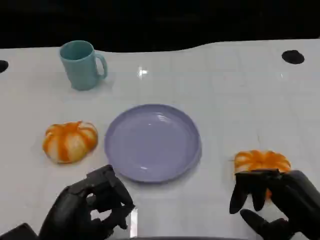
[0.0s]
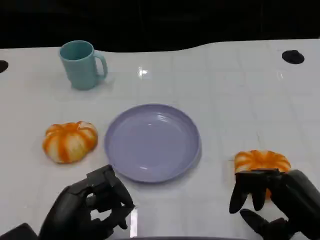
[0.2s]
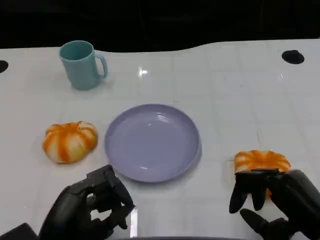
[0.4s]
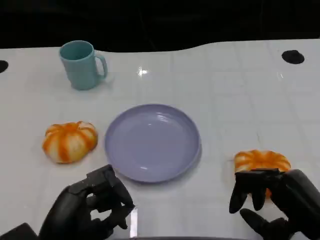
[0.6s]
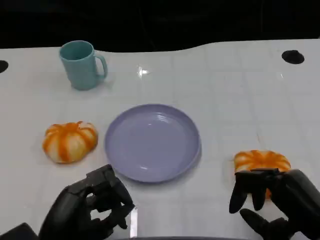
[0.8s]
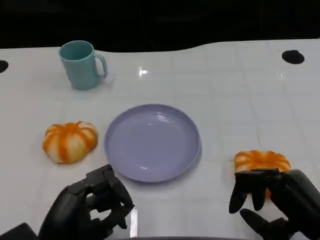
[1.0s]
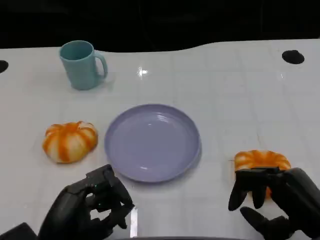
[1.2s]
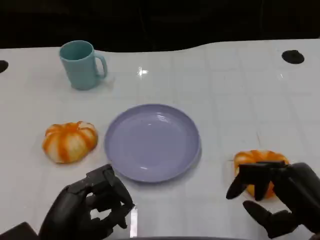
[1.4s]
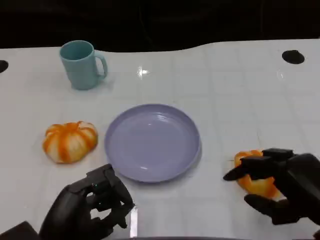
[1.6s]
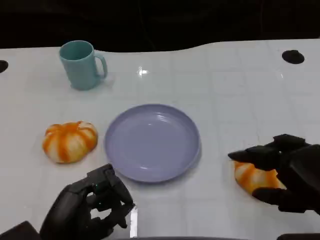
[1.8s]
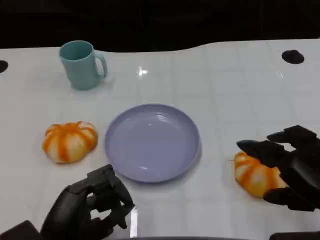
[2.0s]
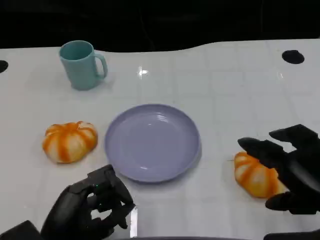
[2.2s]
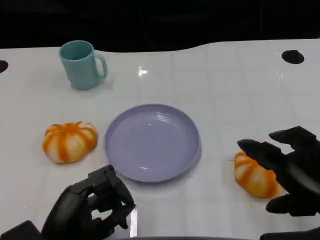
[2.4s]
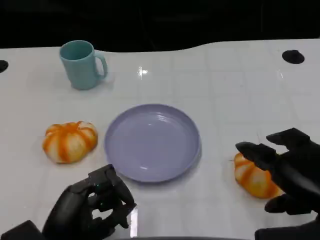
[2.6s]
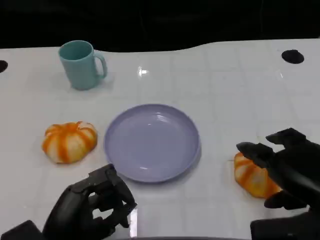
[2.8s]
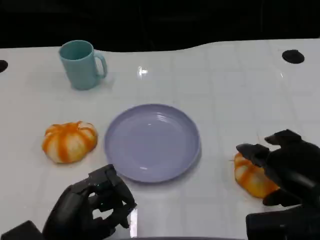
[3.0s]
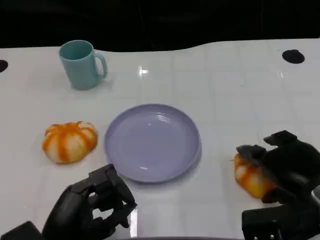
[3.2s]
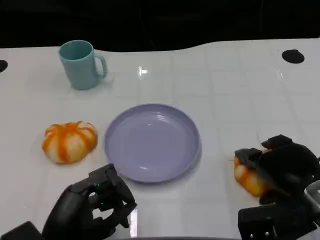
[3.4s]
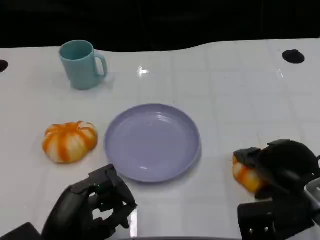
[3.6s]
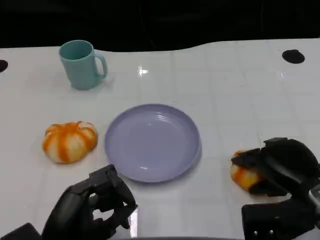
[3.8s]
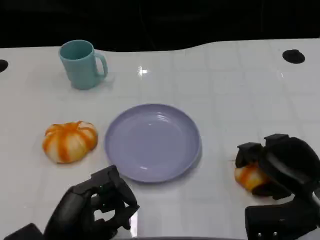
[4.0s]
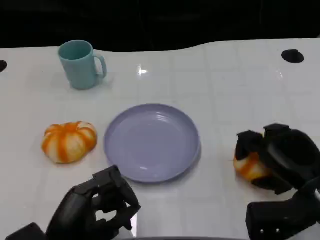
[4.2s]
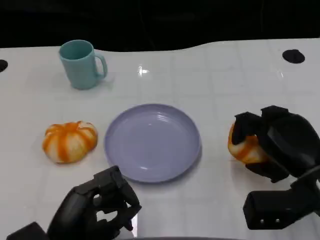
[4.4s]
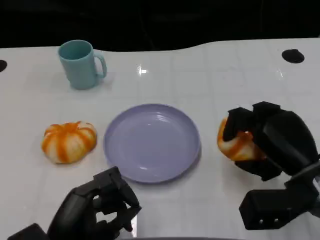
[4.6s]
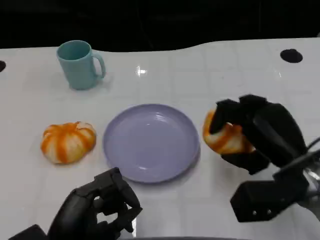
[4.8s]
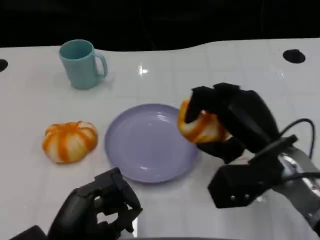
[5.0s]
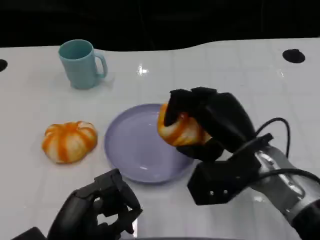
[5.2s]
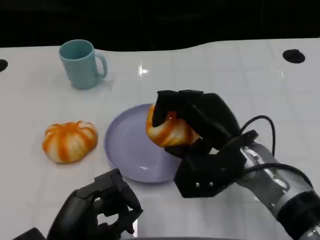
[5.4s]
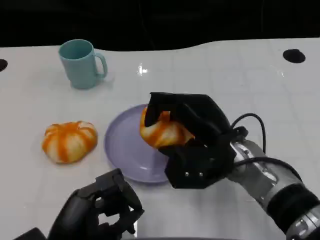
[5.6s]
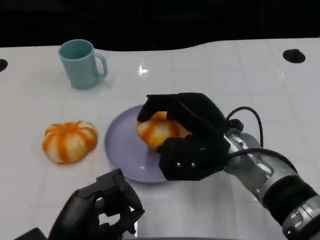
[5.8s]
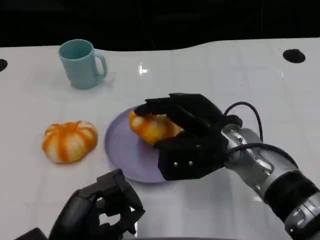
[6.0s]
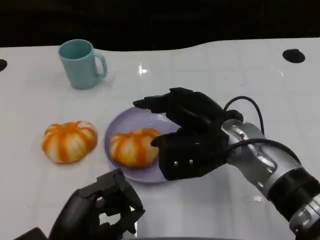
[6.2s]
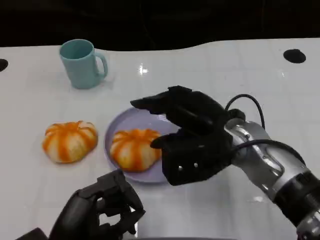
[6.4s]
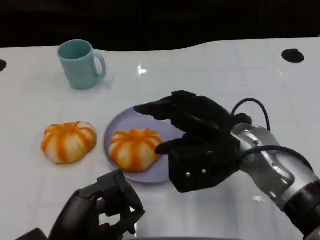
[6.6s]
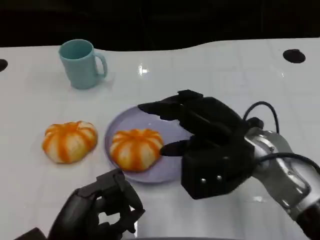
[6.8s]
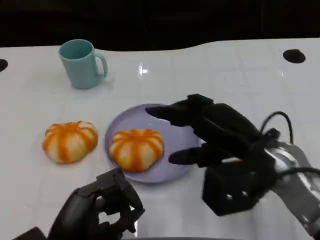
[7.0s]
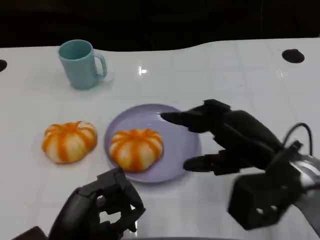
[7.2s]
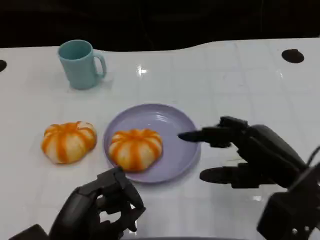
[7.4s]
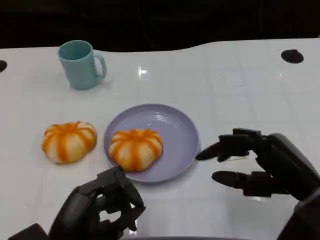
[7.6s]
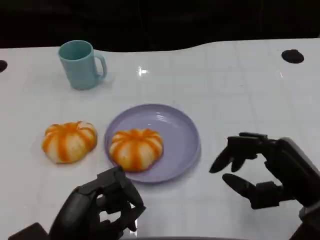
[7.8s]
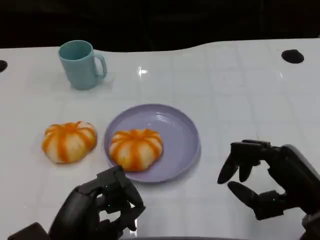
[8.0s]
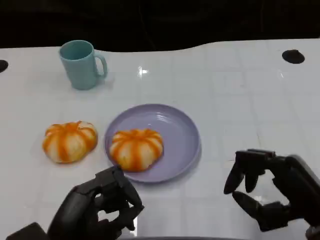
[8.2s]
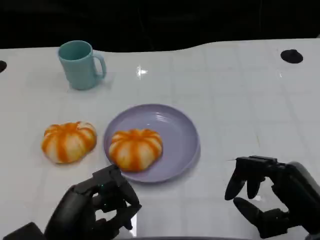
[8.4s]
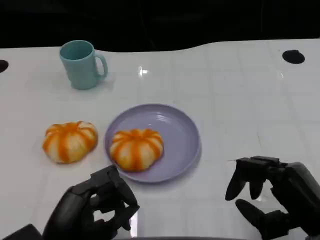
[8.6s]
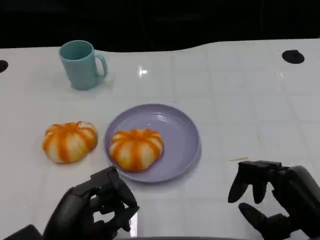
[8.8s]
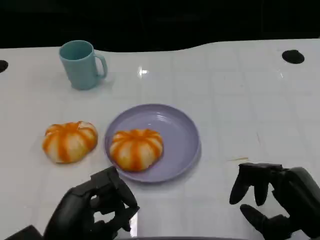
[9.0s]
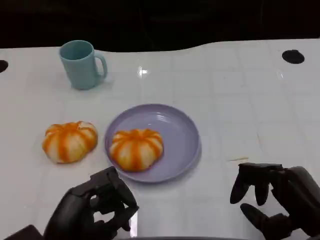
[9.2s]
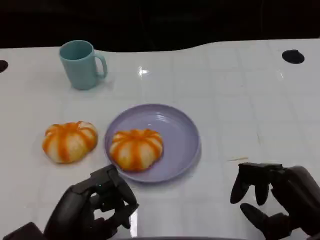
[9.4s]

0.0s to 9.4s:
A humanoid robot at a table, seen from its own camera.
Task of the whole recording: Grasp the bread from the table and place it into the plate.
0.0s to 1.6s: The hands make only small movements.
1.6s to 3.2s: The right hand goes roughly 5 cm forward.
3.2s to 4.8s: The right hand moves some 5 cm.
4.8s to 6.2s: The right hand travels to the left by roughly 10 cm.
6.2s to 7.8s: The right hand travels to the right and backward by some 15 cm.
7.8s to 9.4s: The hands make only small movements.

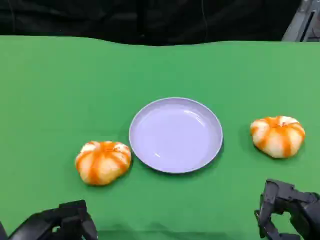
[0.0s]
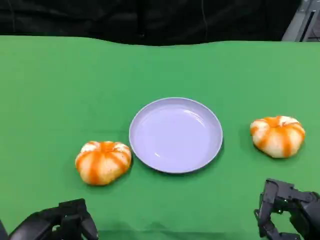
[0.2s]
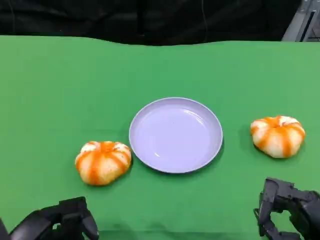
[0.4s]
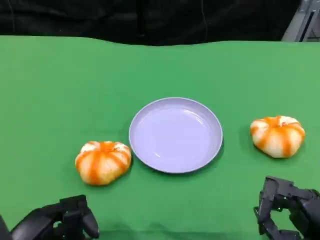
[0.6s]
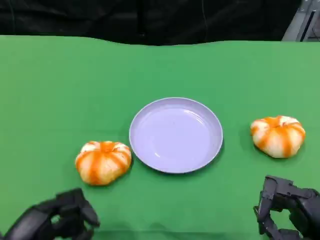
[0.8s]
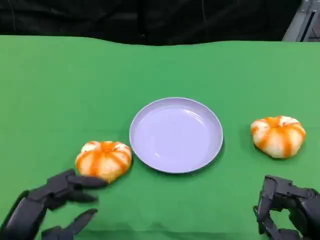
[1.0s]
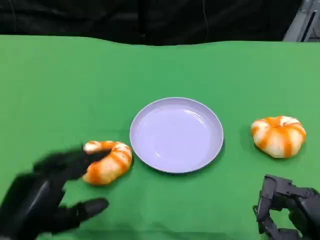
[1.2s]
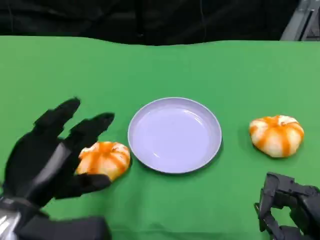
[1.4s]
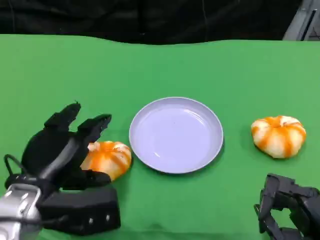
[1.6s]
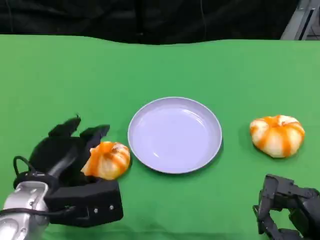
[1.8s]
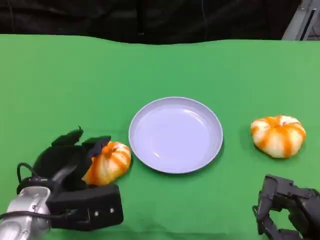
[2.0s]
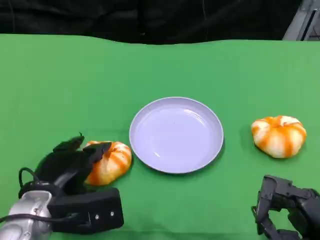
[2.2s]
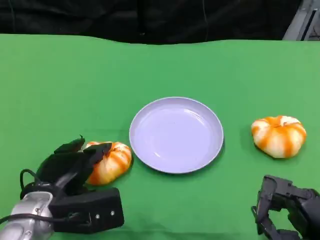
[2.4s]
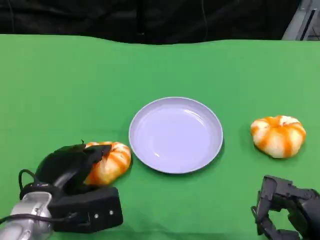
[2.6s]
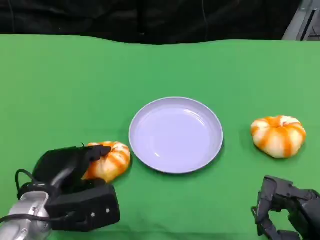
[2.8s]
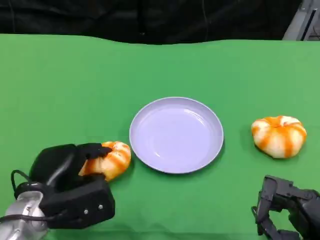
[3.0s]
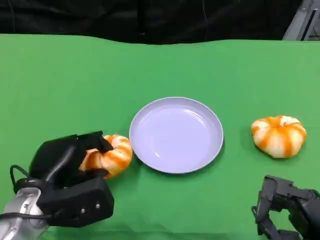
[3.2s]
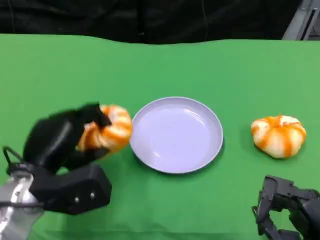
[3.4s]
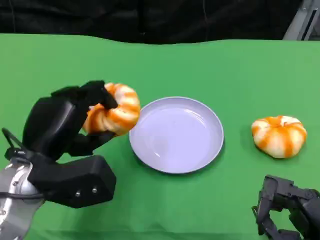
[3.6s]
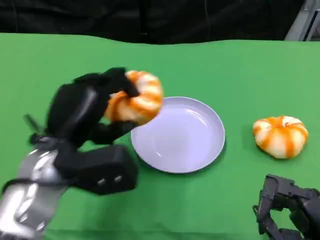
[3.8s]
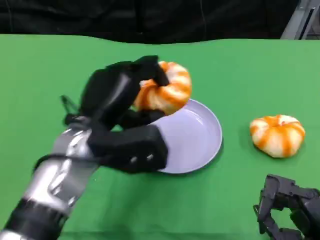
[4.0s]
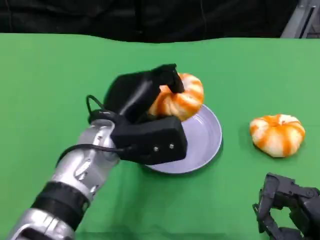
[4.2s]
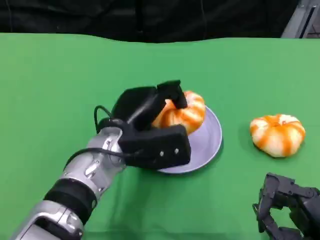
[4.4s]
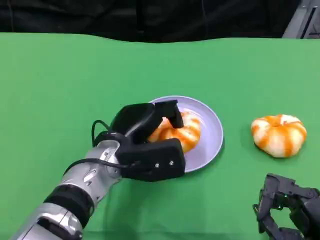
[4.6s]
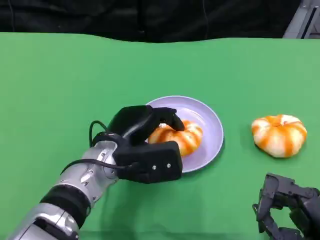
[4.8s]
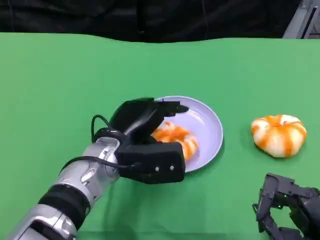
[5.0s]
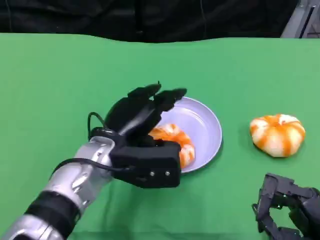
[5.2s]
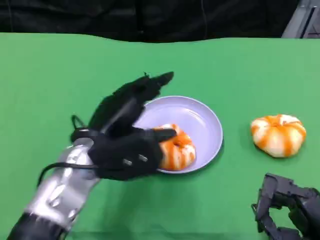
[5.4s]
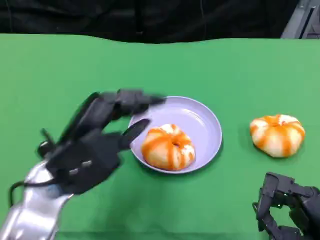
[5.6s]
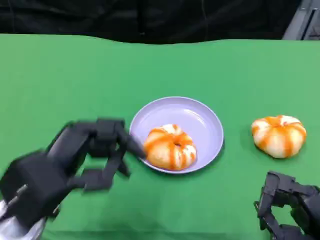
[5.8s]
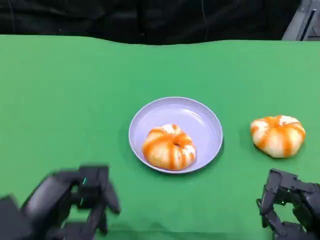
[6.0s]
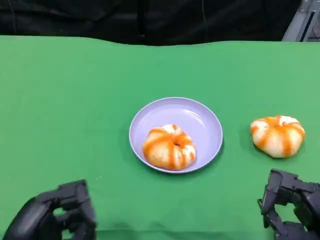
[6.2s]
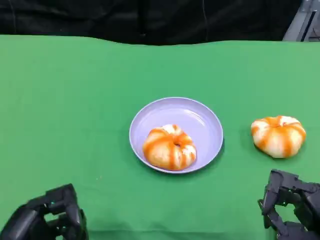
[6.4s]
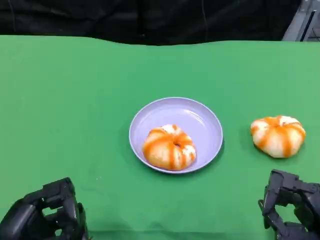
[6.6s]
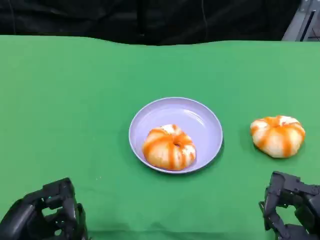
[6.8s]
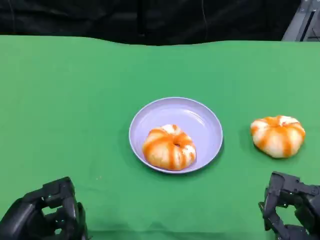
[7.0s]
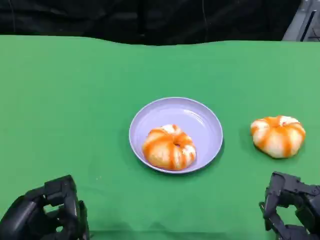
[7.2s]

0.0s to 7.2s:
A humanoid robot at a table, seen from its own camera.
Task of the whole recording: Grasp the bread from the table and place it into the plate.
0.0s to 1.4s: The left hand shifts approximately 5 cm forward.
1.4s to 2.8s: The left hand shifts approximately 5 cm downward.
2.8s to 4.4s: The left hand heads to the right, forward and upward, covering some 15 cm.
4.4s to 5.8s: The left hand travels backward and to the left by roughly 15 cm.
5.8s to 7.2s: The left hand goes roughly 5 cm downward.

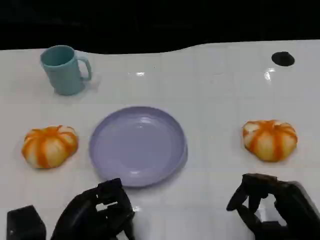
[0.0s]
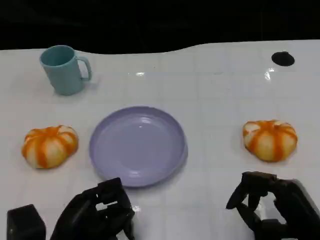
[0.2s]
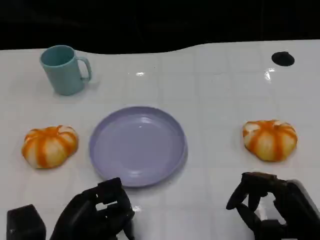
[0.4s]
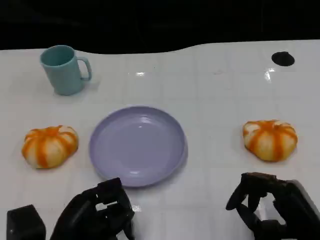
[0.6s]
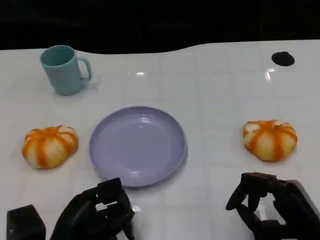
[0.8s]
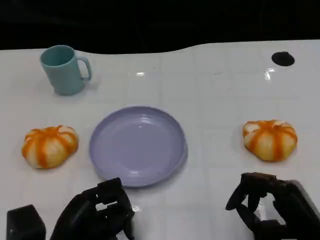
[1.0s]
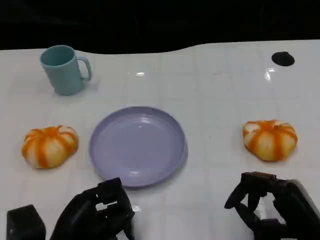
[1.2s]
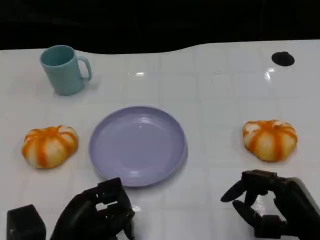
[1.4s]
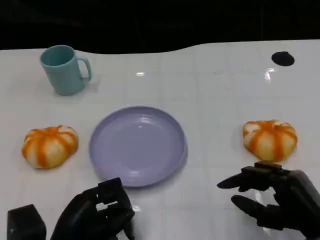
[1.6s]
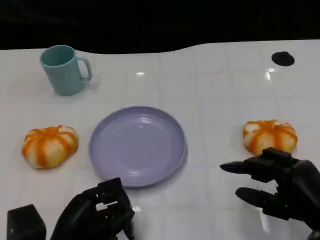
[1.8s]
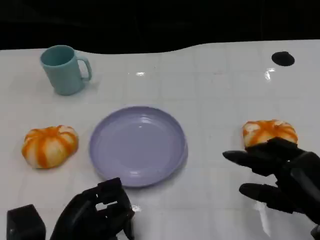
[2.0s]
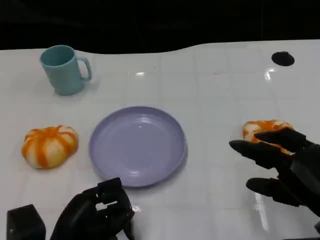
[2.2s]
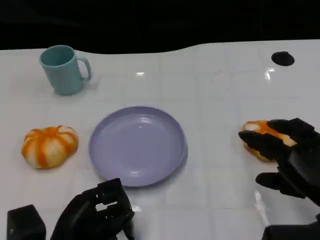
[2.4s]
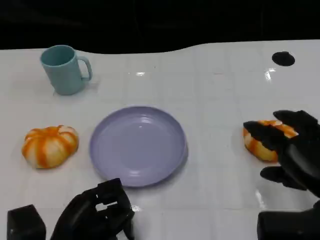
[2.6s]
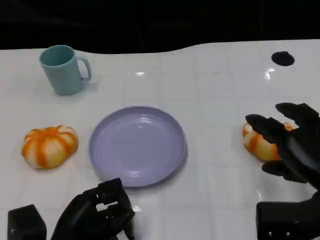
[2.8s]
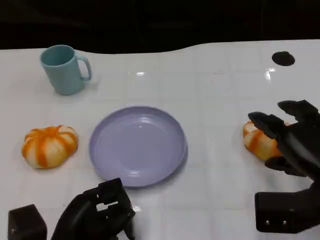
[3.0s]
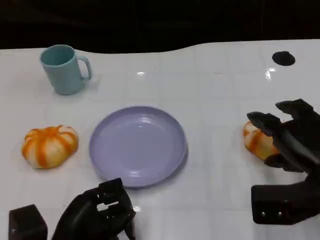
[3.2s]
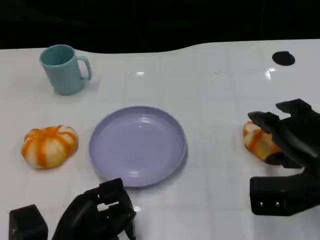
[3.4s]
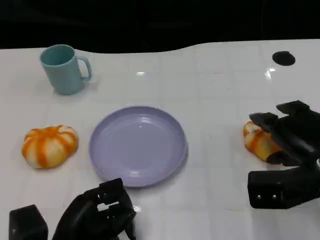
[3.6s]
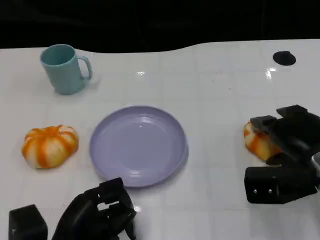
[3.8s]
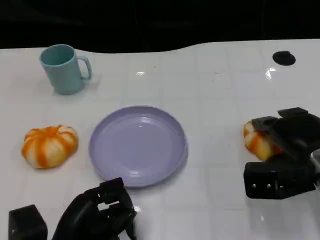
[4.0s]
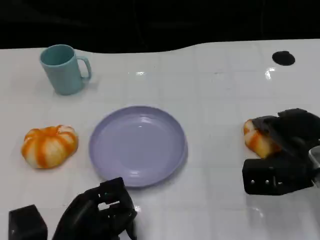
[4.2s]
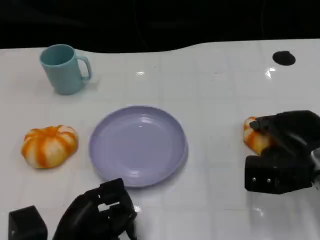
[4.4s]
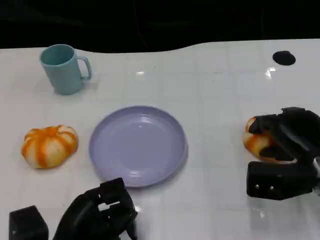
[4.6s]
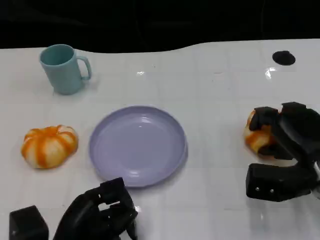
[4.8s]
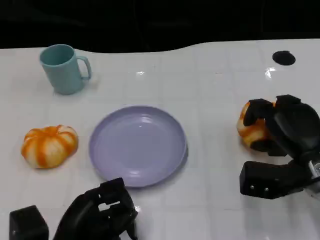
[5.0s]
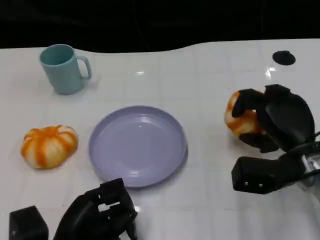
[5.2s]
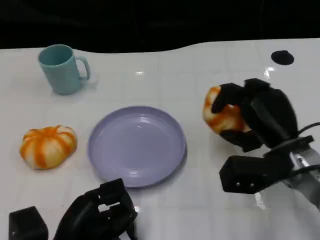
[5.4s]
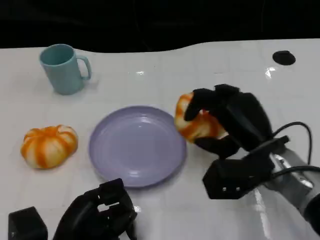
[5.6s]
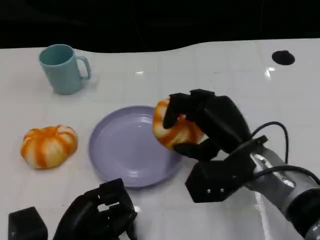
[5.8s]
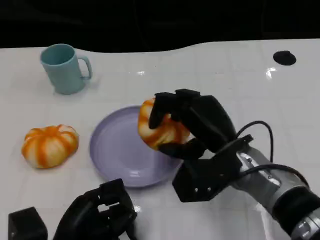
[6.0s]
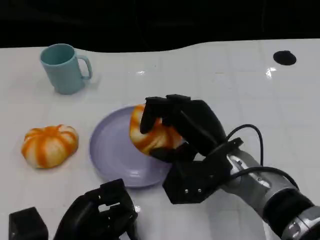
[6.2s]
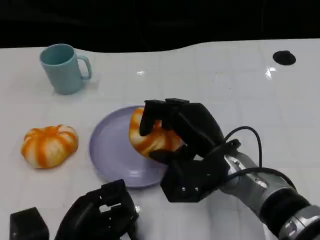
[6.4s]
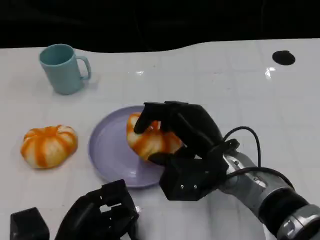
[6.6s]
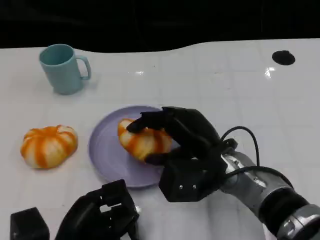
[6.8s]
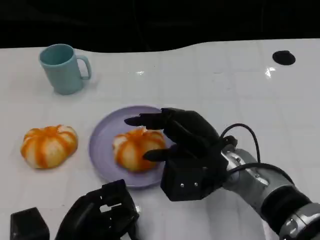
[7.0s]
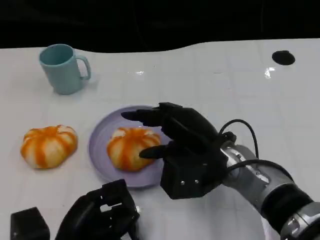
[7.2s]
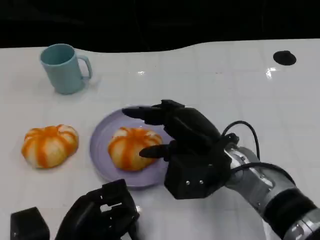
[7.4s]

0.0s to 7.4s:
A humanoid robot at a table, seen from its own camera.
Task of the whole recording: Grasp the bread from the table and place it into the plate.
0.0s to 1.4s: Both hands stay put.
1.4s to 3.0s: The right hand travels upward and forward by roughly 10 cm.
3.0s to 4.4s: The right hand travels forward by approximately 5 cm.
4.4s to 6.0s: The right hand goes some 15 cm to the left.
6.0s to 7.4s: The hands stay close to where they were, moving slightly.
